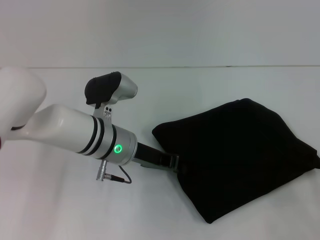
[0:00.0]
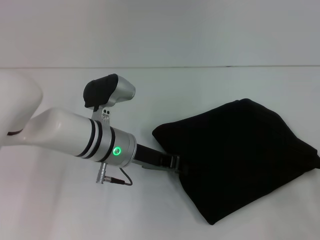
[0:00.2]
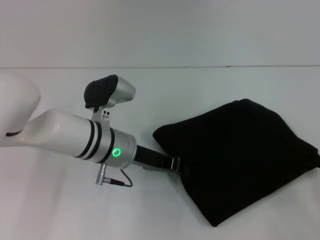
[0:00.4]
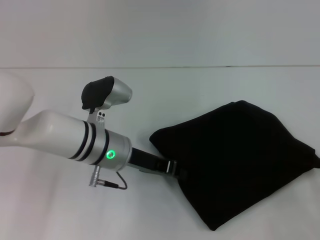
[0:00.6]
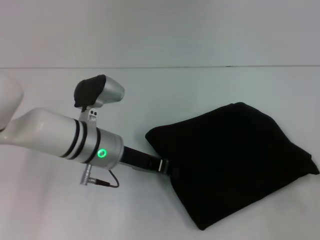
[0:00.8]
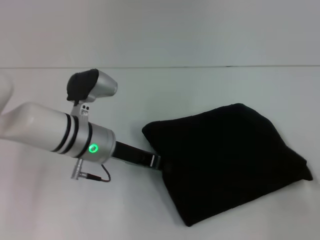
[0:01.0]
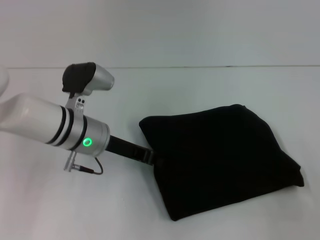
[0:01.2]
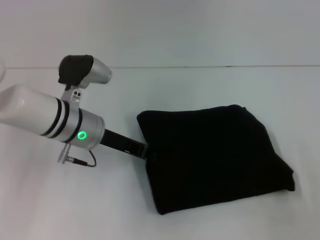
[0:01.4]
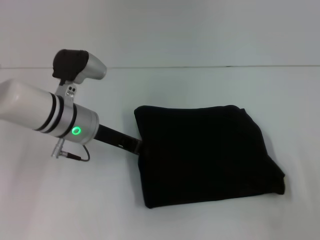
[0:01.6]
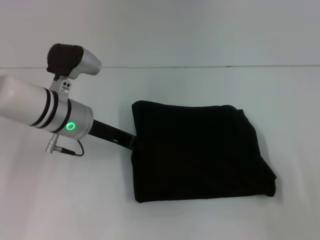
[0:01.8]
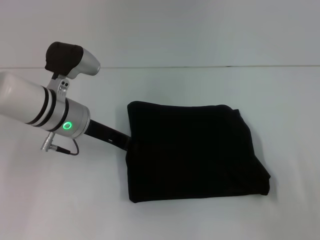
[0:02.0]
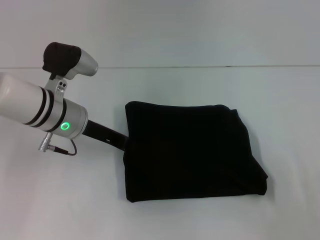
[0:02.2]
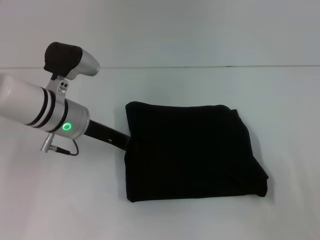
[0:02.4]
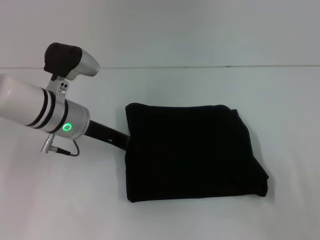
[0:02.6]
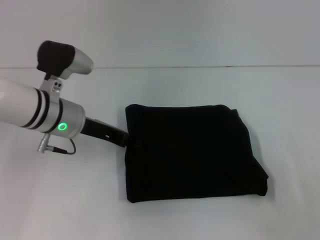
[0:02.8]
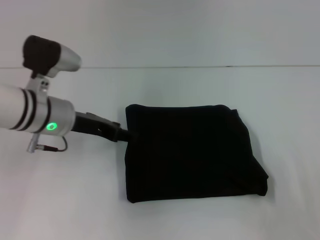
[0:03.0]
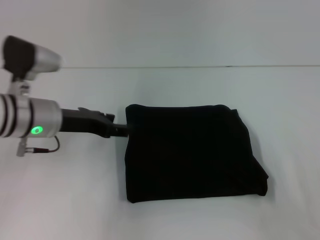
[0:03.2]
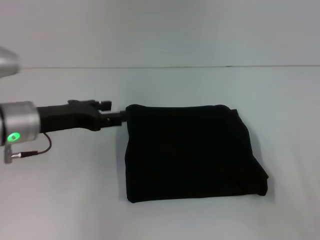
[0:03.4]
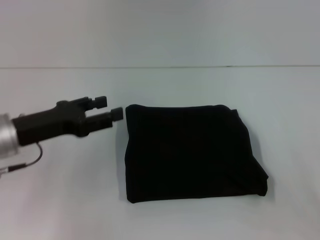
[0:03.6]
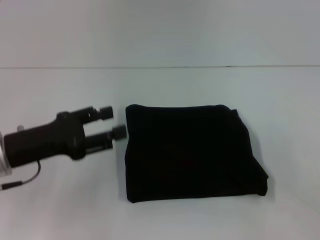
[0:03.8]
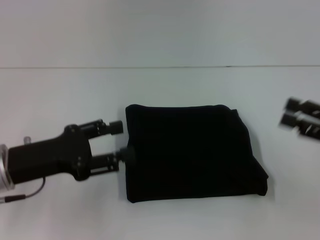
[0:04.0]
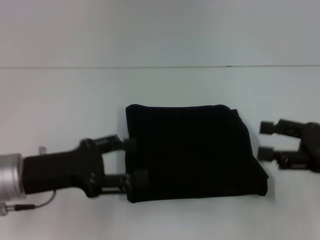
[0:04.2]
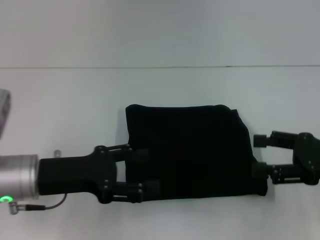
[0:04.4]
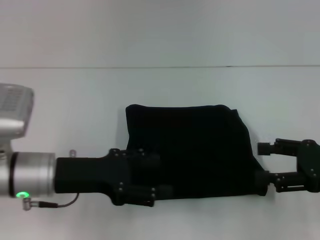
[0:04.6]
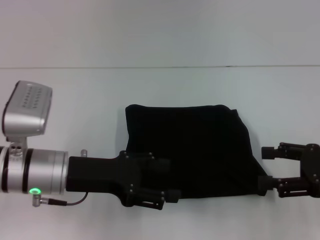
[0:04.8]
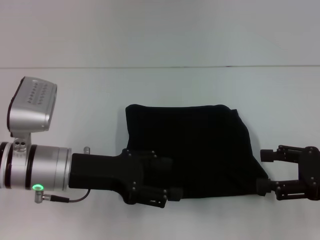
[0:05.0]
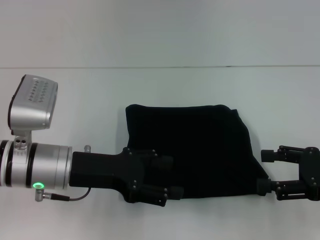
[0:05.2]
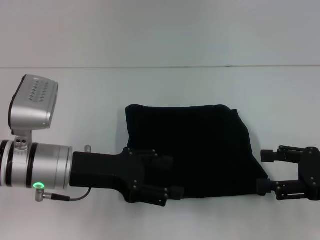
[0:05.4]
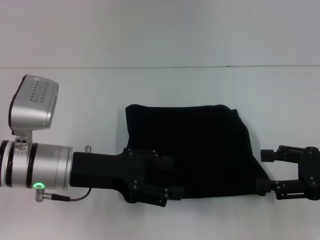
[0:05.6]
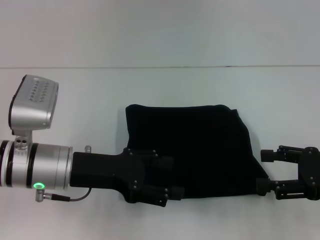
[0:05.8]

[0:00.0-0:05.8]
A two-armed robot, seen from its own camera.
0:00.0 to 0:01.4: The left gripper ends up approximately 5 cm from where it was.
0:01.4 to 0:02.8: There are only small adjustments of the grippers.
0:02.8 to 0:04.4: The left gripper heads backward, covering about 10 cm, and opens up. Meanwhile the right gripper heads upward and forward, covering some 15 cm, and opens.
0:04.4 to 0:05.8: The grippers move only a little.

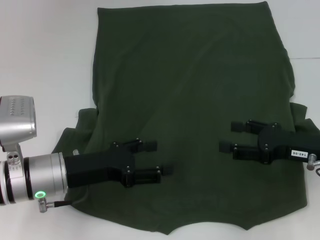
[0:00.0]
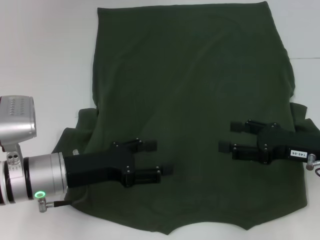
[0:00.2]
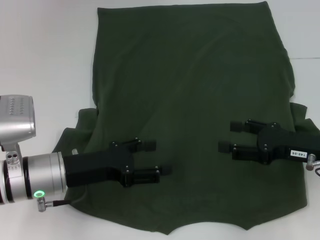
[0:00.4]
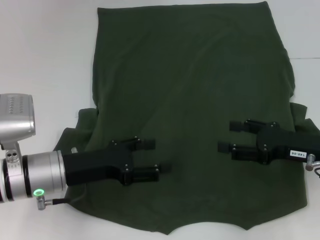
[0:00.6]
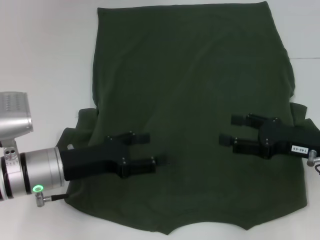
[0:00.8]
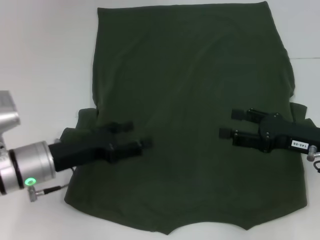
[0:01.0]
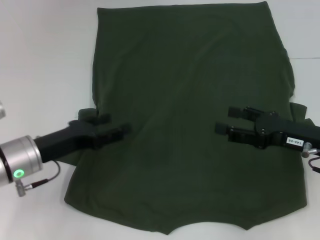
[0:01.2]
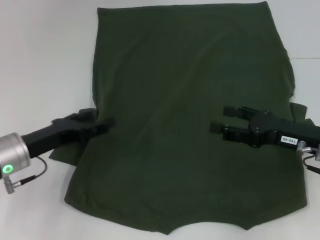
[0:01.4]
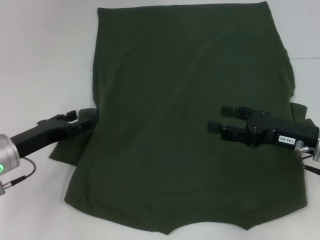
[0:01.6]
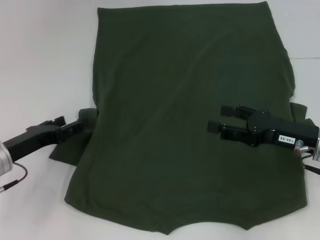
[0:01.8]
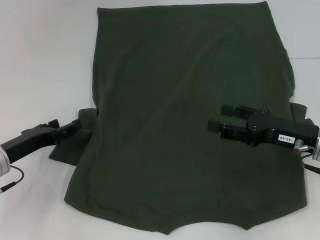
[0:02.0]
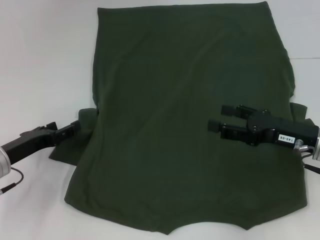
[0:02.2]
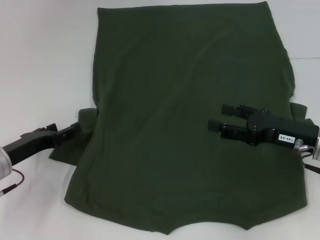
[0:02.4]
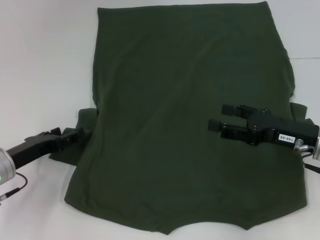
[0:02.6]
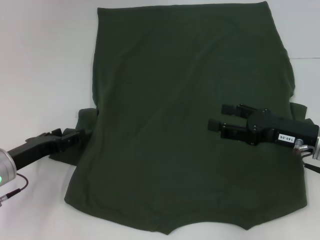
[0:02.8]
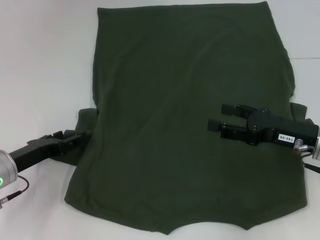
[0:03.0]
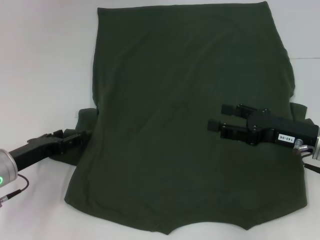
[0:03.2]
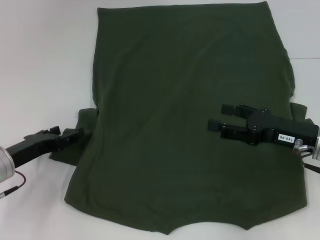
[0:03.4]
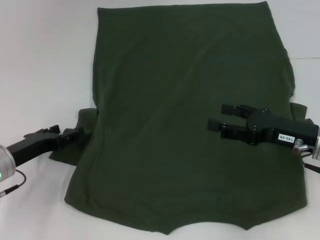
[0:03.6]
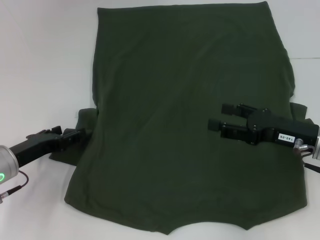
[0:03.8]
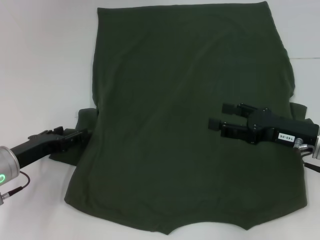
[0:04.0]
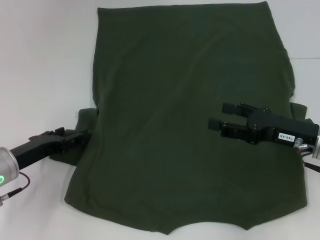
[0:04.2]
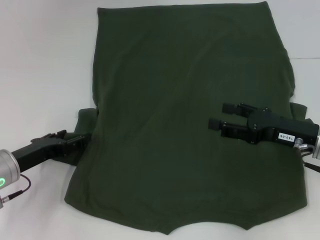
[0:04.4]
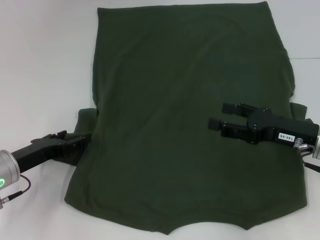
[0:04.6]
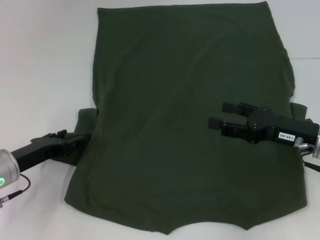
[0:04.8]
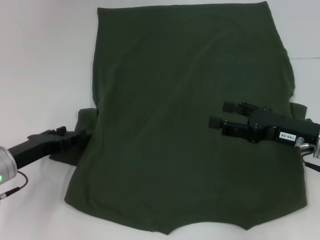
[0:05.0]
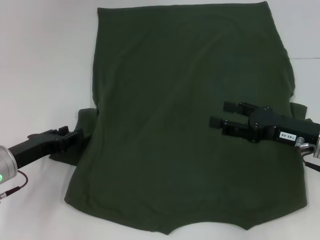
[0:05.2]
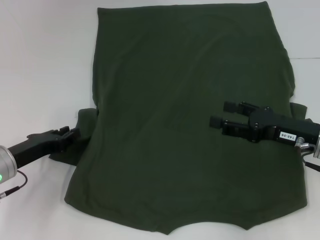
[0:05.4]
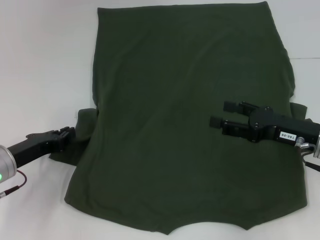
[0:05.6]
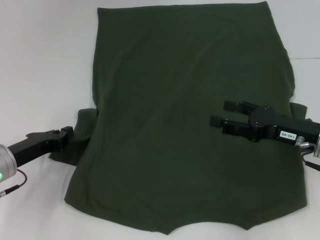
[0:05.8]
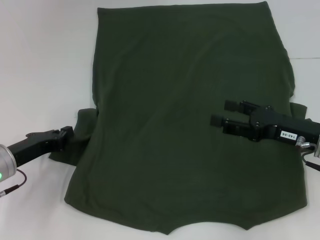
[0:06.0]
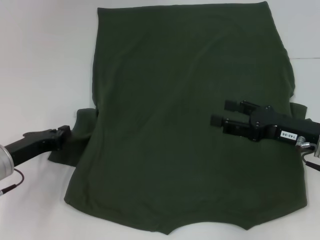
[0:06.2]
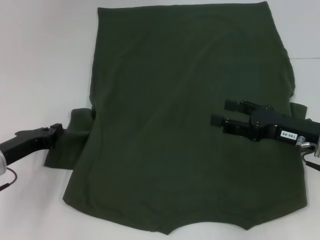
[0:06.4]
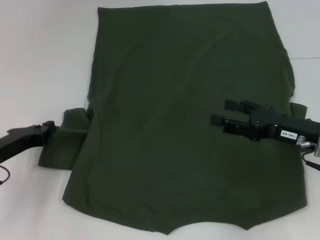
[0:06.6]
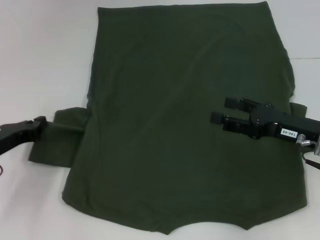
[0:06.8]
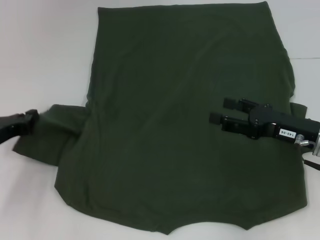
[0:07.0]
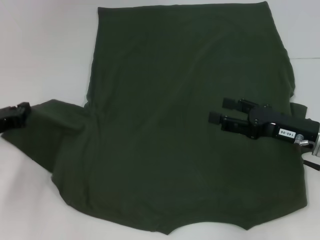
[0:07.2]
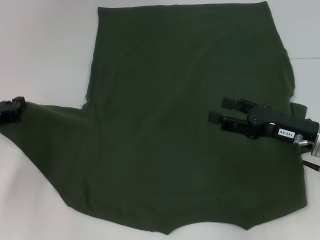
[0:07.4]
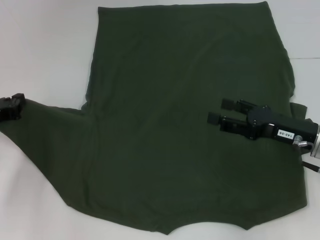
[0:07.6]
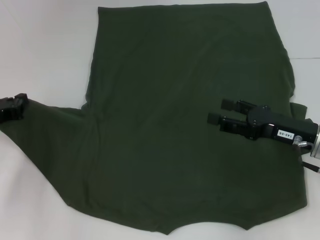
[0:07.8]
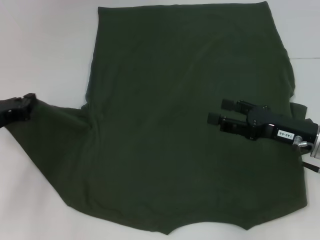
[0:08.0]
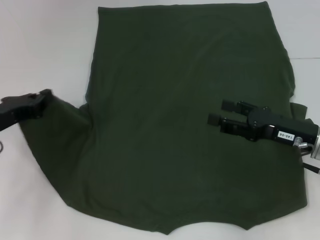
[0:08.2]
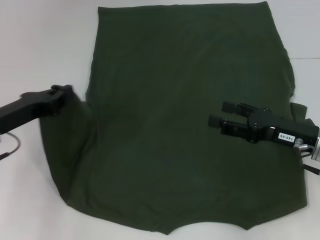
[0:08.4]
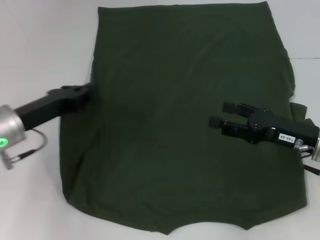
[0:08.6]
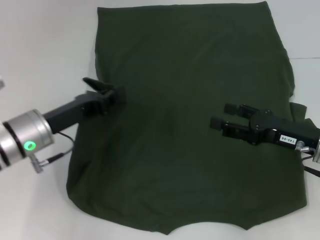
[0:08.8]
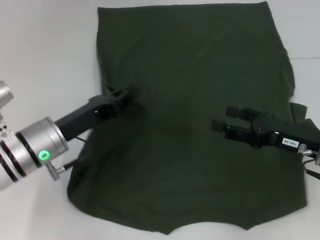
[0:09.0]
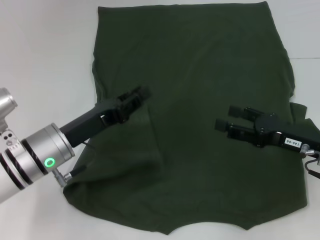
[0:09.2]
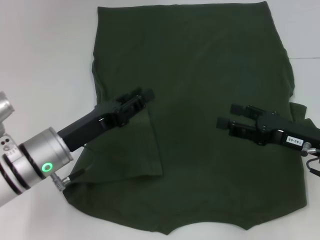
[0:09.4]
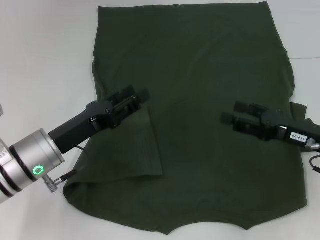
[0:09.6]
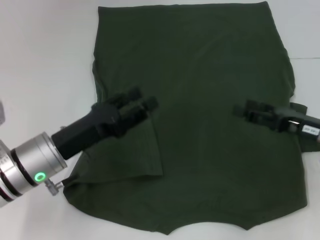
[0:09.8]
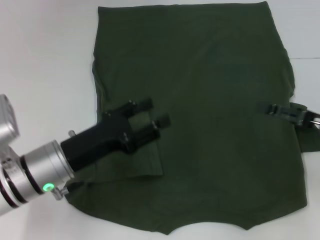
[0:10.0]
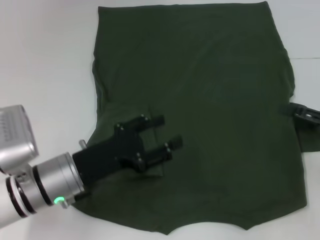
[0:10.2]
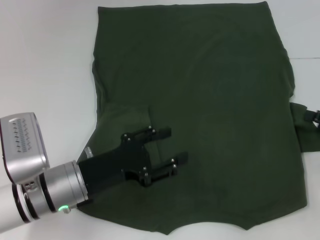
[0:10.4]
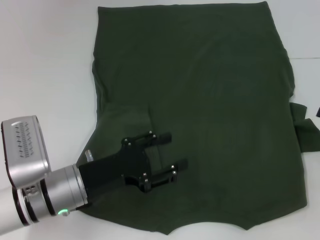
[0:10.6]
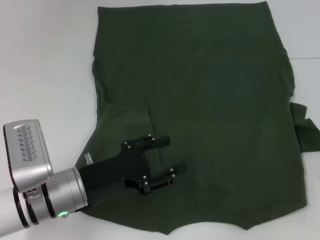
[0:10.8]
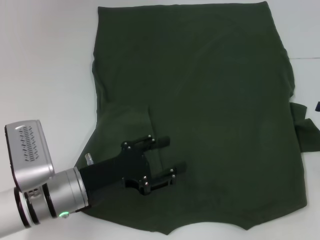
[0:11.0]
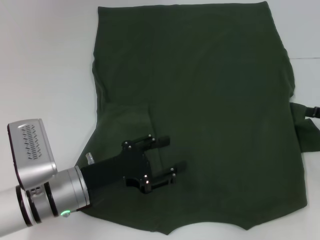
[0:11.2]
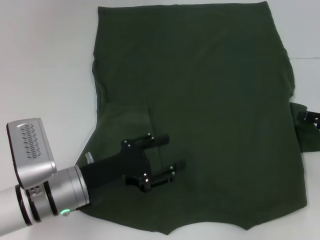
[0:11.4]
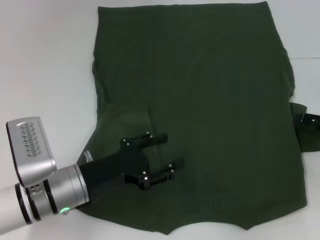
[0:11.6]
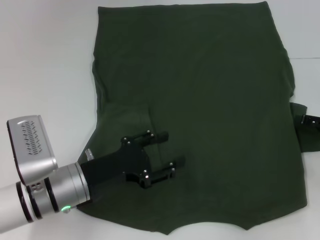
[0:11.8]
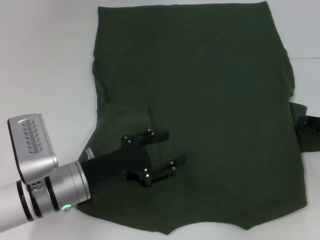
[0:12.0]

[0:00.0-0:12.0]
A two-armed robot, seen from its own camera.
Step, 0:00.0 to 0:09.2: Fold the bottom left sleeve with your left hand.
0:00.0 to 0:01.6: The left gripper goes some 10 cm to the left.
0:01.6 to 0:03.0: The grippers move only a little.
0:03.0 to 0:04.4: Both grippers stay put.
0:04.4 to 0:06.0: The left gripper closes.
0:06.0 to 0:07.6: The left gripper heads to the left, covering some 5 cm.
0:07.6 to 0:09.0: The left gripper shifts roughly 15 cm to the right.
0:09.0 to 0:10.4: The left gripper moves roughly 5 cm, and opens its fingers. Meanwhile the right gripper heads to the right, covering approximately 10 cm.
0:10.4 to 0:12.0: The grippers make only small movements.

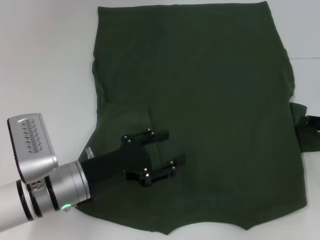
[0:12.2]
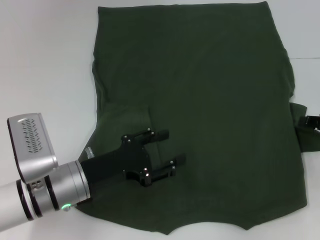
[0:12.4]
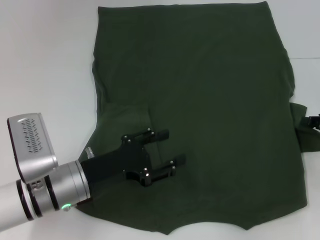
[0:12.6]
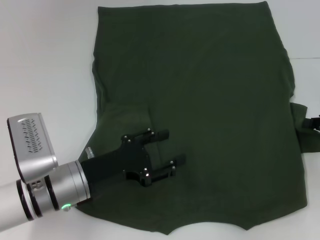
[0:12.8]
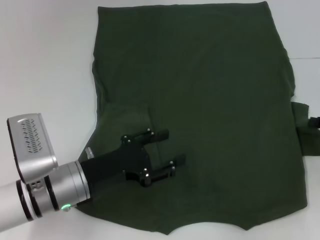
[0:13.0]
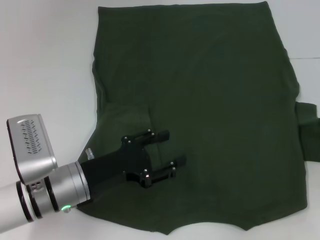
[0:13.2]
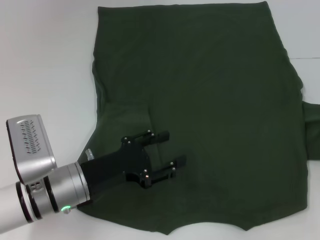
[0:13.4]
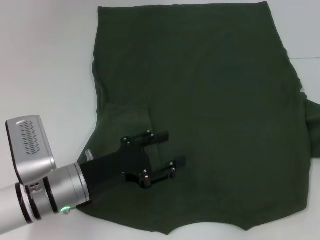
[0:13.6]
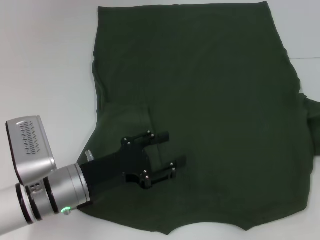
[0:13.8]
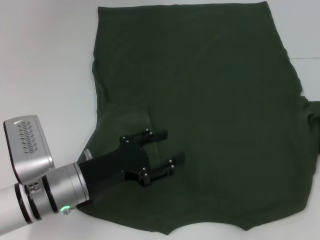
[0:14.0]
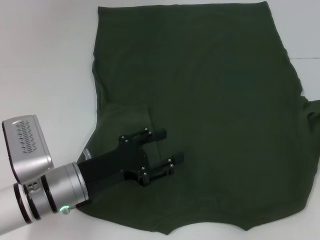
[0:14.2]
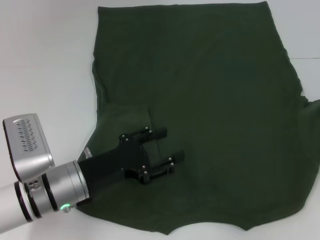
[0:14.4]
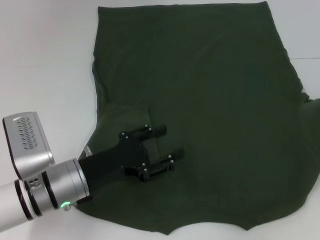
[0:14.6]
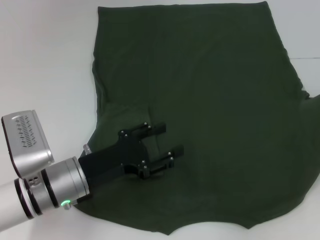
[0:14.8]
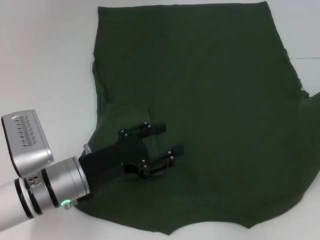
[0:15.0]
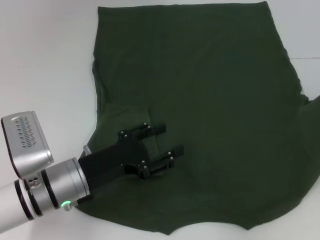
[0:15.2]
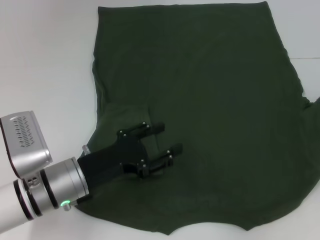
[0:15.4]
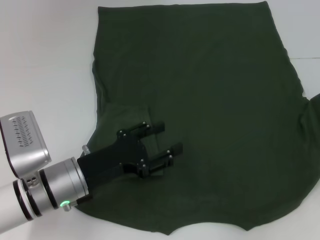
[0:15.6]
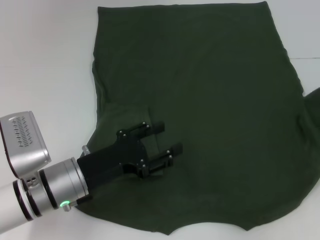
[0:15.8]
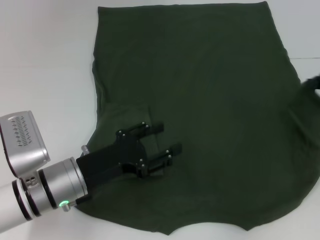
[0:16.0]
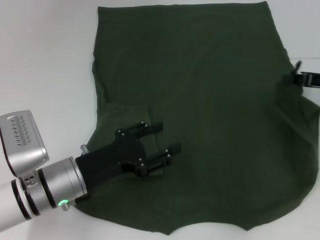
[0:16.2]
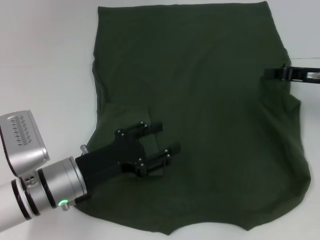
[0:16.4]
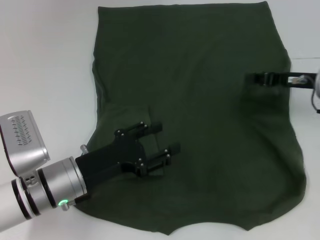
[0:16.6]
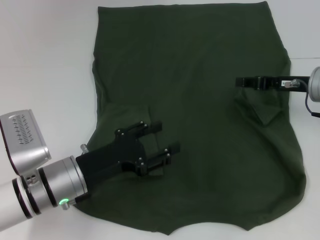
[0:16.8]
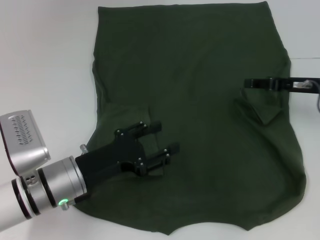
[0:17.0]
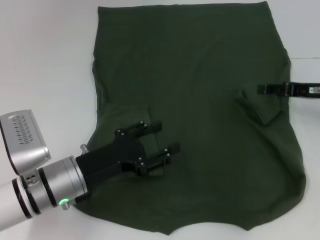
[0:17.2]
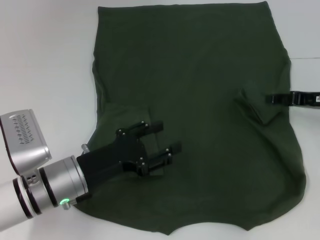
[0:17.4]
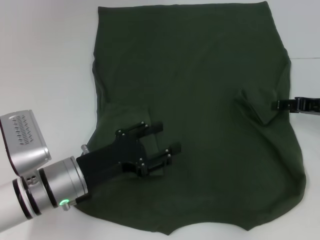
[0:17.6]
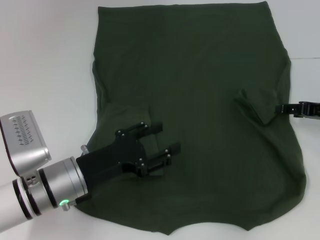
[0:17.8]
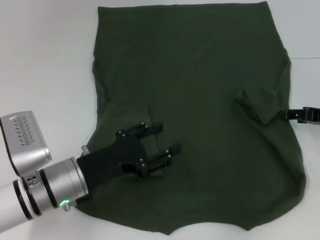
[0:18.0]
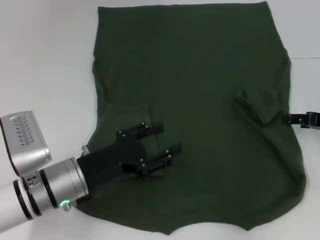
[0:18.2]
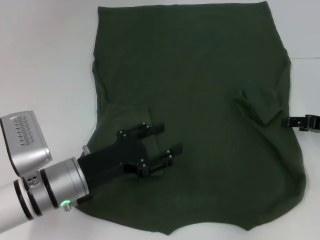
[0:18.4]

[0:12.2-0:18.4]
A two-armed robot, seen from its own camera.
0:12.2 to 0:13.8: The right gripper goes approximately 5 cm to the right, and closes up.
0:13.8 to 0:15.4: The grippers move only a little.
0:15.4 to 0:16.8: The right gripper shifts approximately 15 cm to the left.
0:16.8 to 0:18.4: The right gripper shifts roughly 10 cm to the right, and opens.
